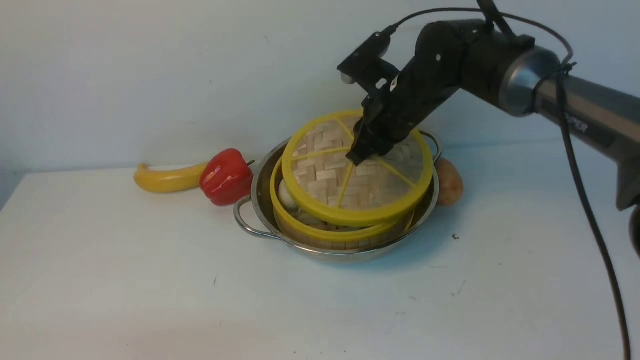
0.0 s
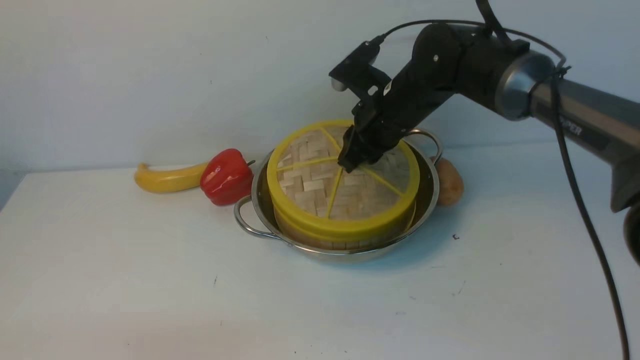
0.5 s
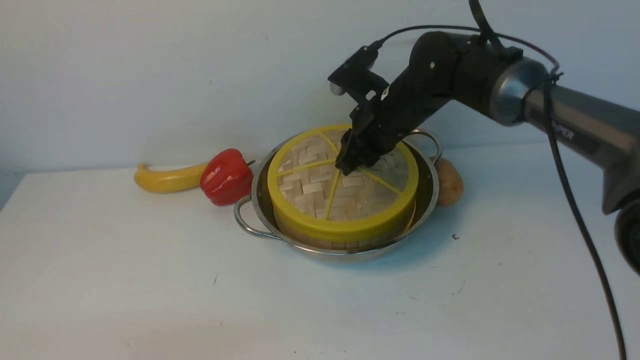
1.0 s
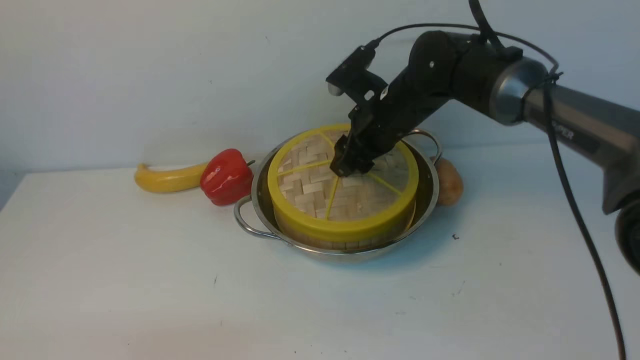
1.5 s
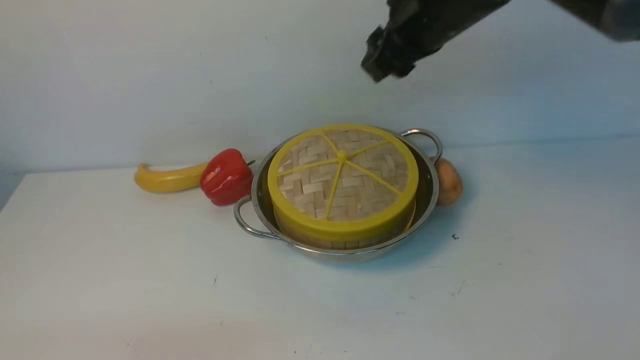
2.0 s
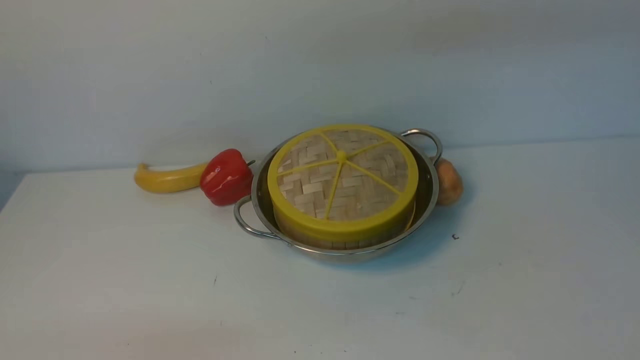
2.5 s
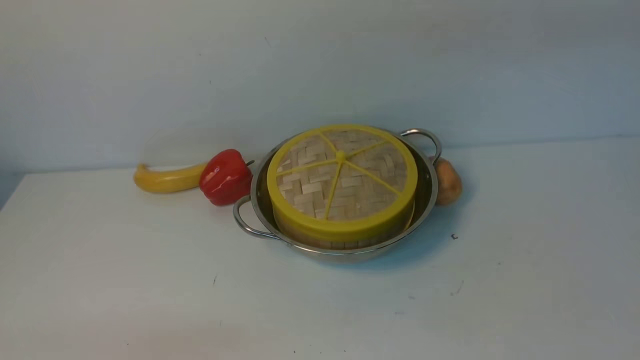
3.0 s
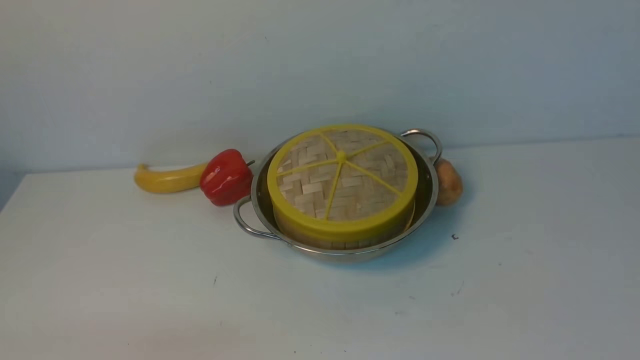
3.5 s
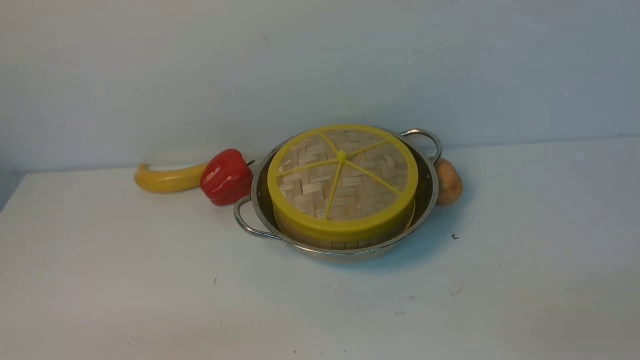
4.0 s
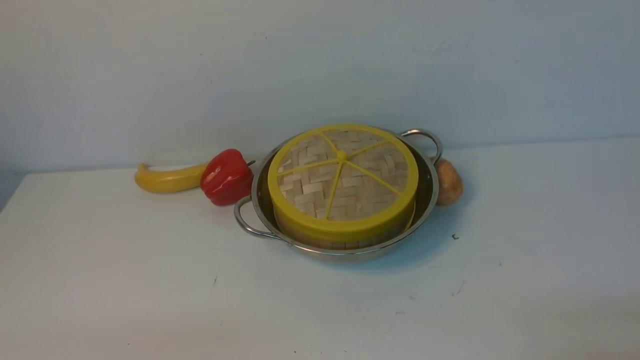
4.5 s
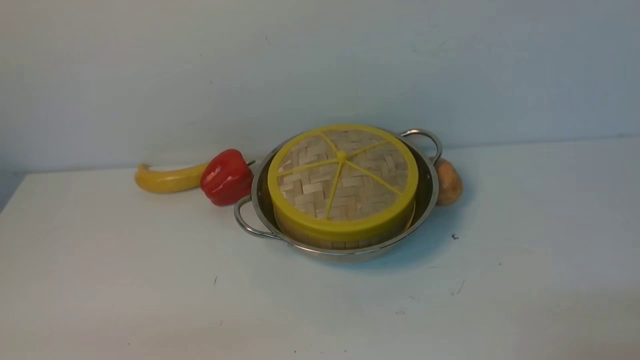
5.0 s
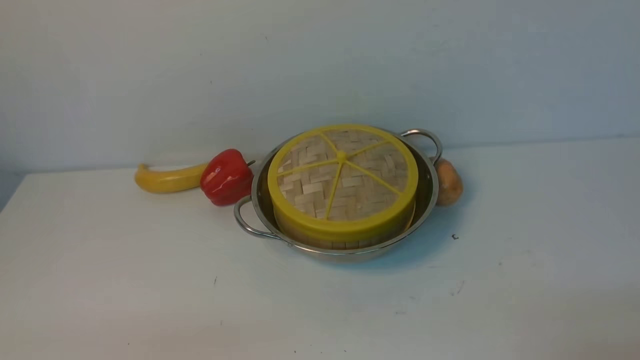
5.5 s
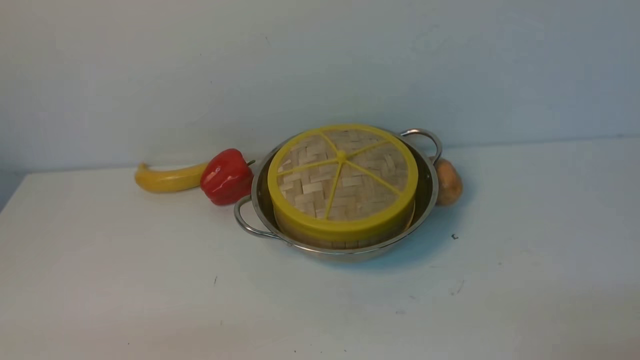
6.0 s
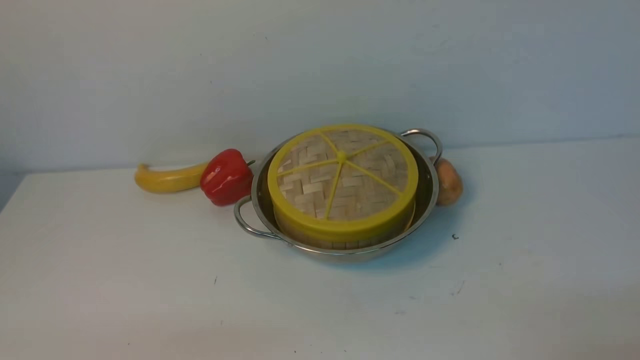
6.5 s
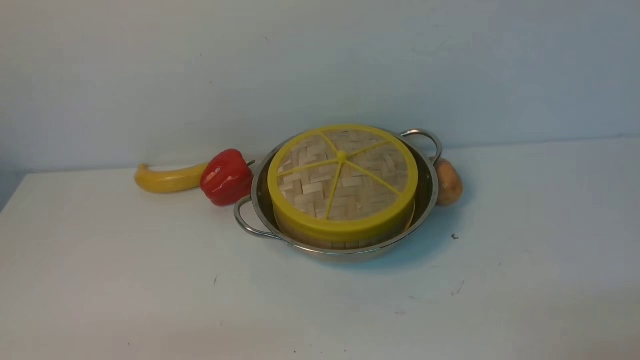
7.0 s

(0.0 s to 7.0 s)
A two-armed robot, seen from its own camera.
Task of the whole recording: place the steamer in the pot on the white table, and put the lid on the steamer.
Step, 0.0 s - 2.0 s: use the right arm to place the steamer lid on the steamer.
0.0 s - 2.0 s: The right gripper moves upward, roughly 15 cm, and opens.
2.0 s - 3.5 s: The right gripper heads backward and to the right, covering about 30 cm, and closes up.

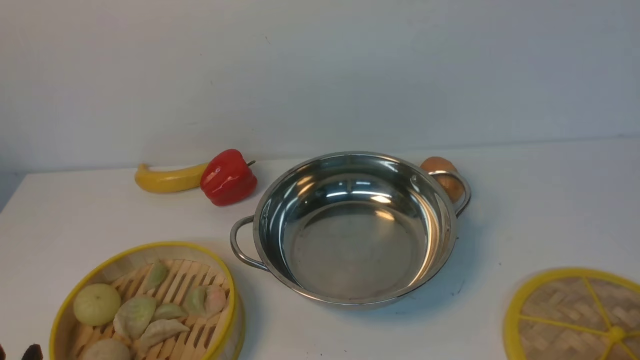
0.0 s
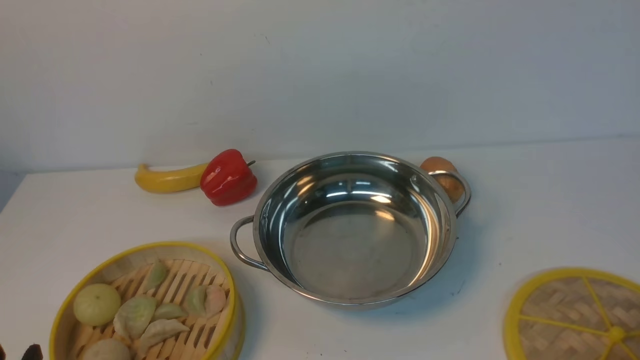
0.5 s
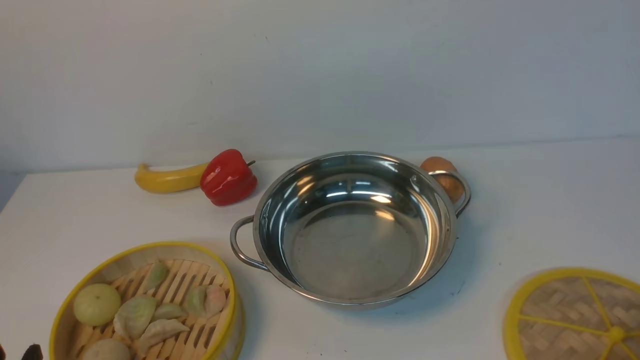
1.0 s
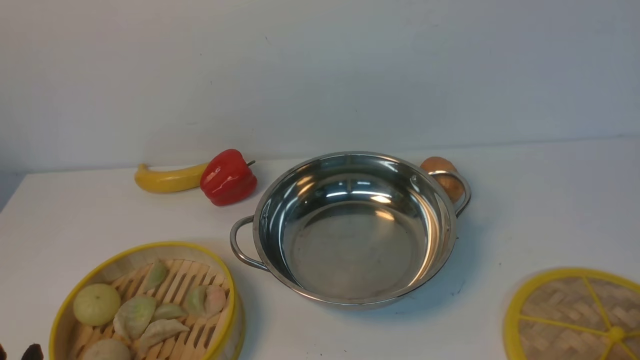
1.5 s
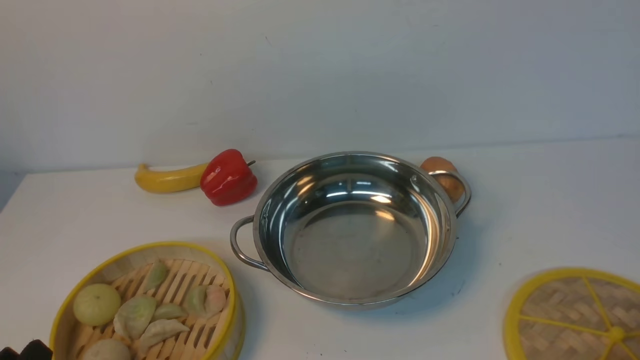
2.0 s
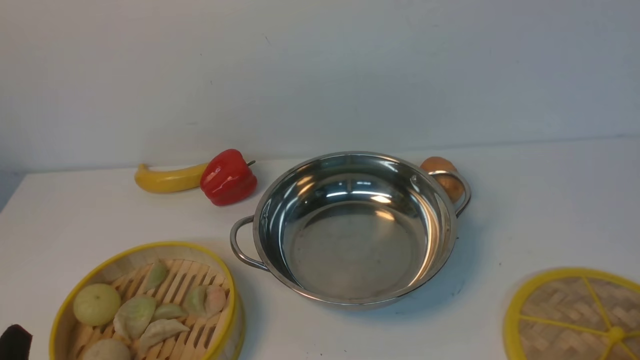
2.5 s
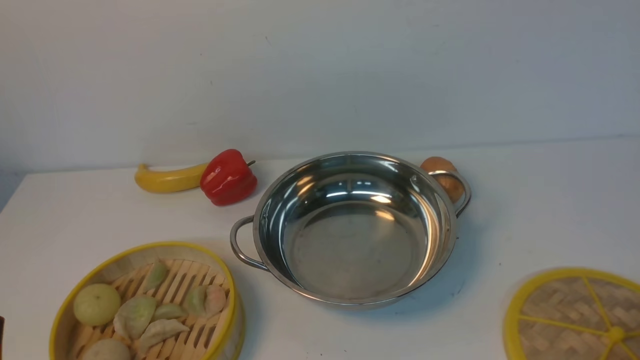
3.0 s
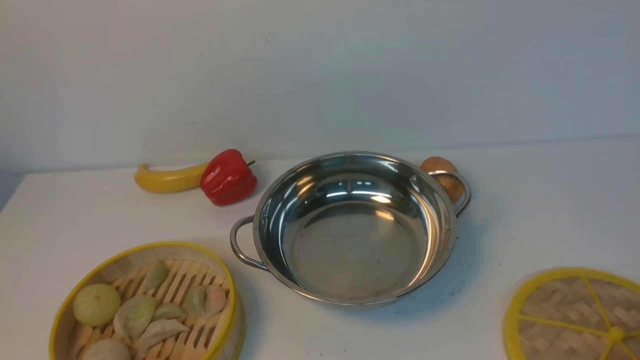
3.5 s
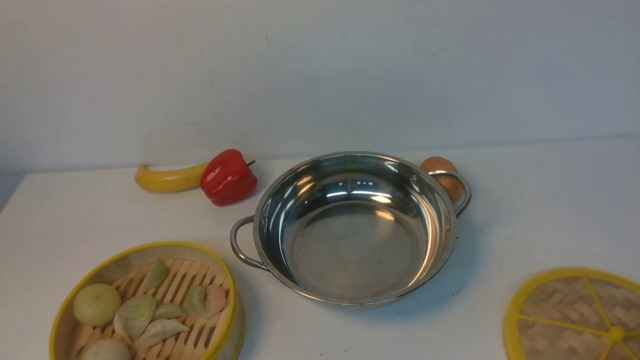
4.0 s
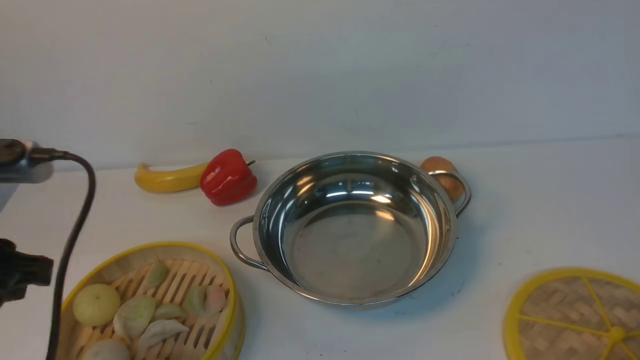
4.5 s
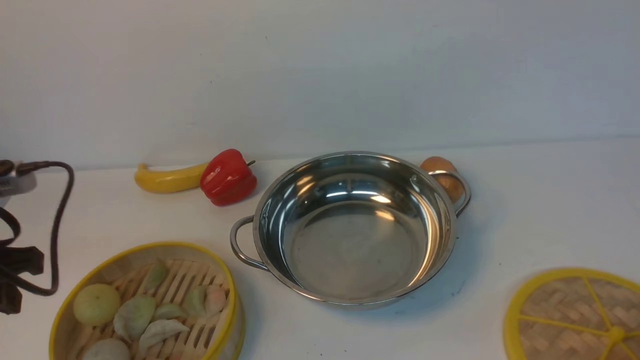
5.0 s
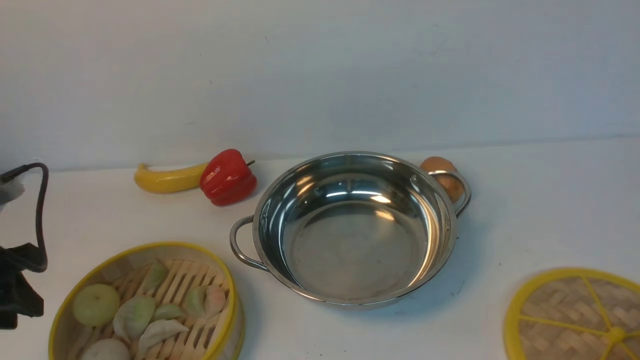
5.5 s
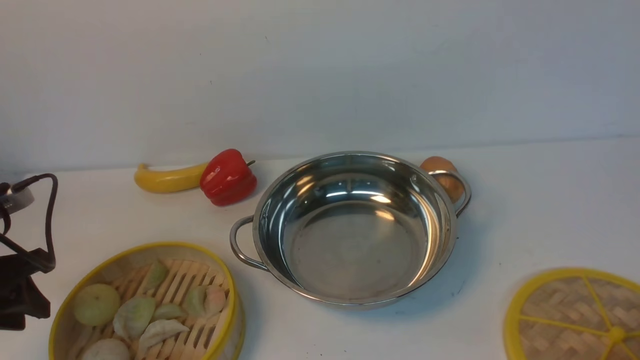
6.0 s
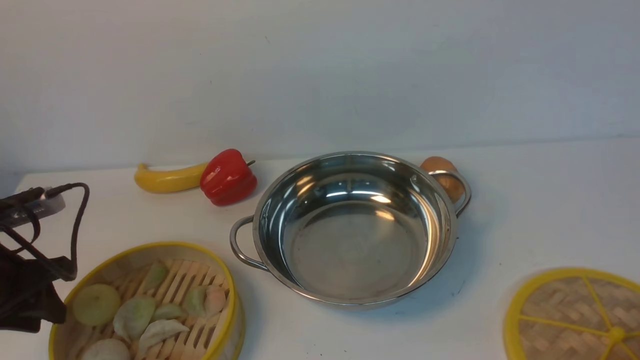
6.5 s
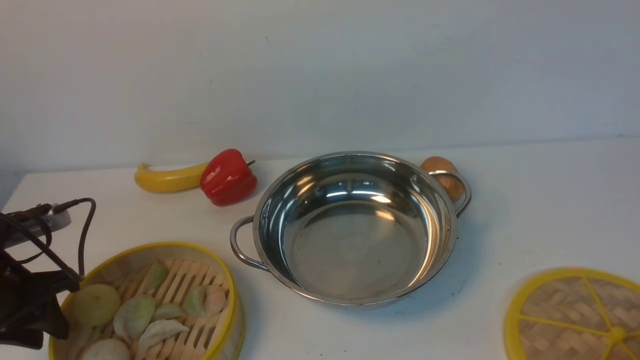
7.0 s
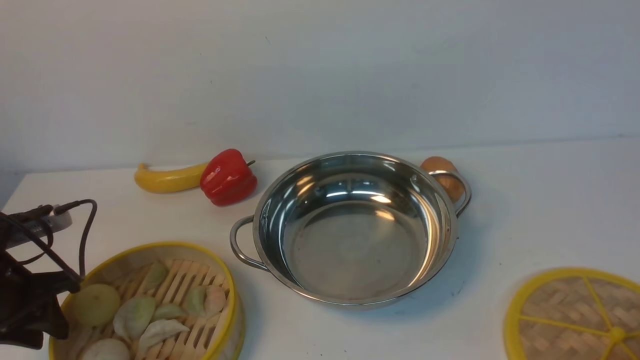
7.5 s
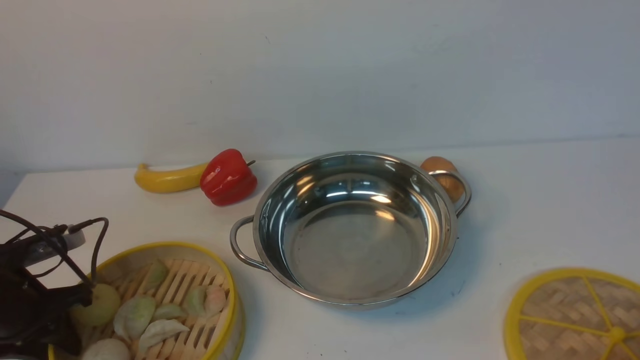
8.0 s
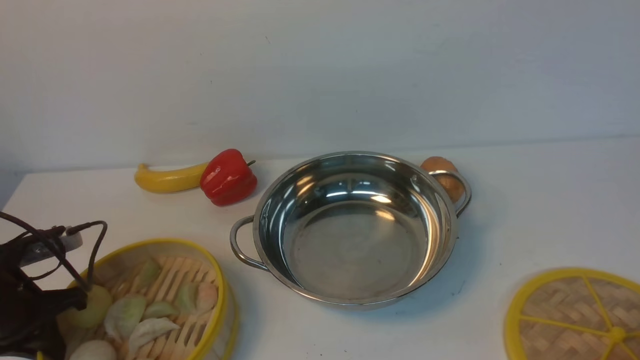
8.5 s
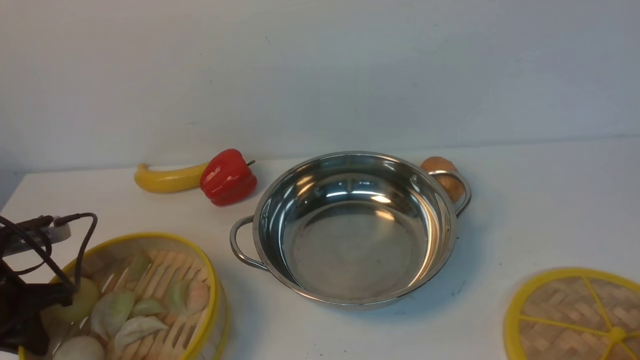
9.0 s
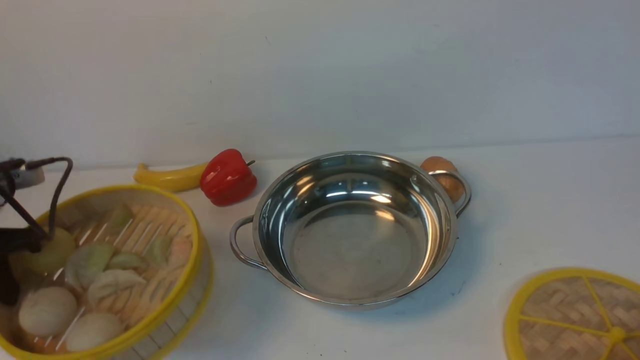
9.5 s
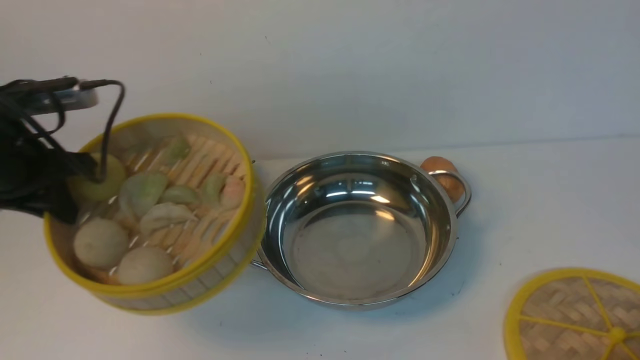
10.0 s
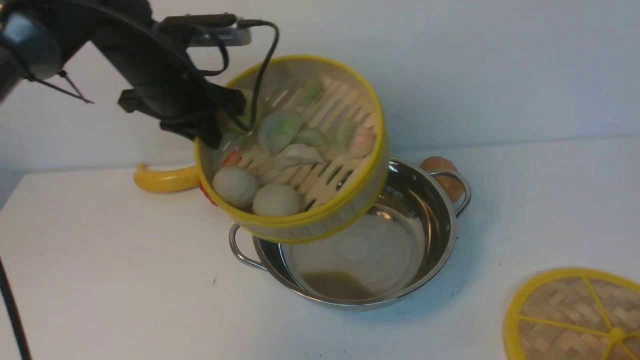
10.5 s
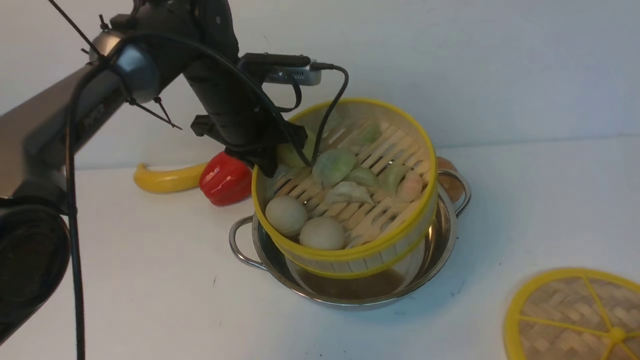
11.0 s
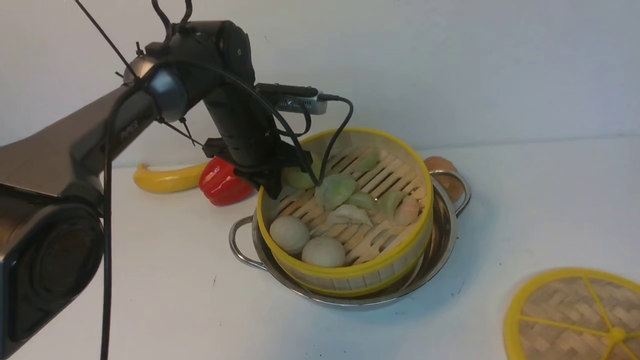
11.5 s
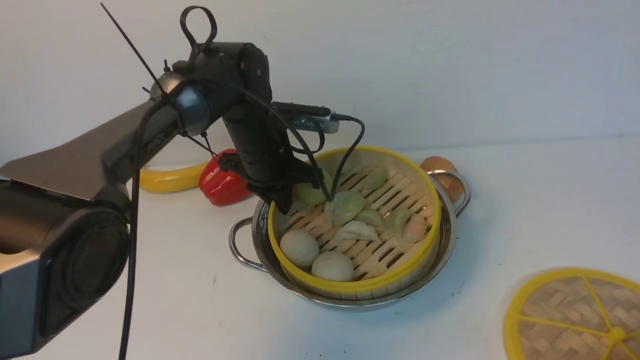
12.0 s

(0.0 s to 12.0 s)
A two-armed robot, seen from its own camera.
Task of the whole recording: place the steamer in the pot on the white table, and put the lid on the steamer.
Step, 0.0 s - 9.0 s: use the left arm to lift the steamer closest to it.
4.0 s - 6.0 s: The left gripper shifts about 25 cm forward, to the left and downward.
6.0 s - 8.0 s: The left gripper is displaced downward by approximately 5 cm.
8.0 s - 10.0 s: The left gripper travels upward and forward by approximately 15 cm, and closes its fingers.
10.0 s - 12.0 s: The left gripper moves to the right, forward and downward, roughly 25 cm.

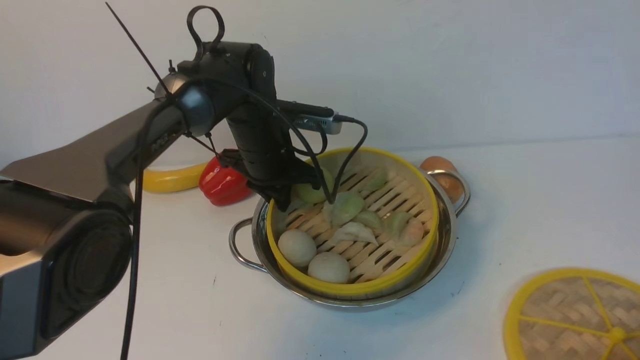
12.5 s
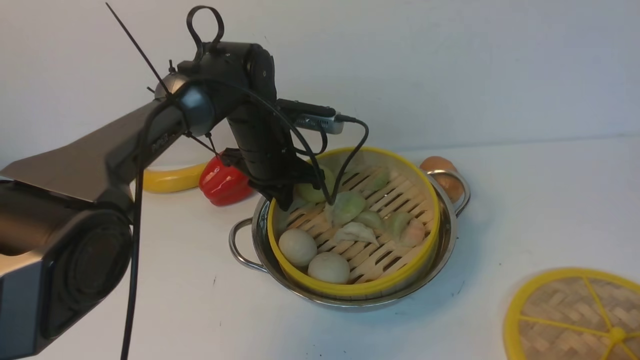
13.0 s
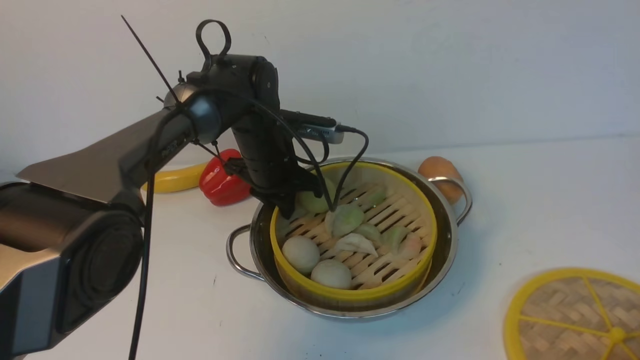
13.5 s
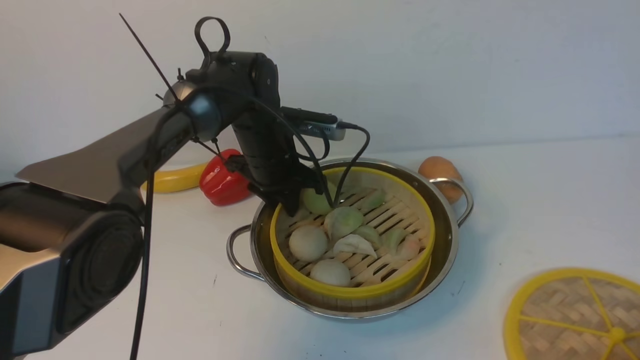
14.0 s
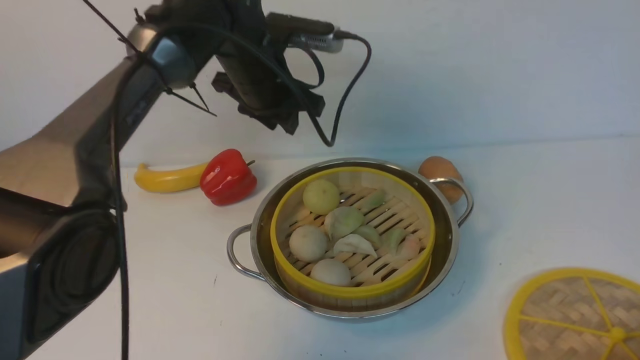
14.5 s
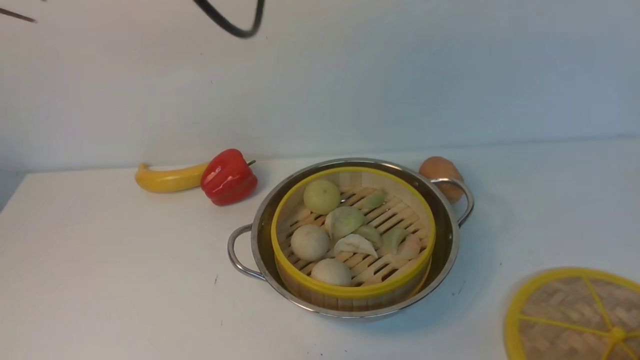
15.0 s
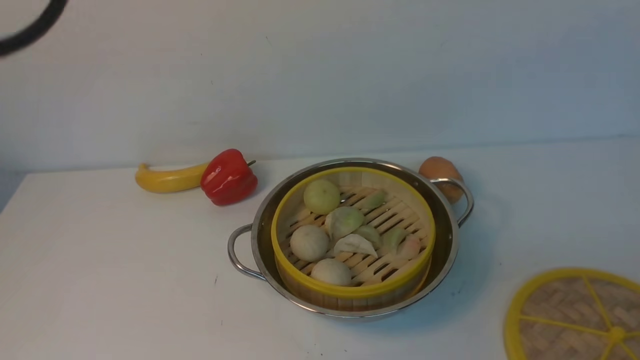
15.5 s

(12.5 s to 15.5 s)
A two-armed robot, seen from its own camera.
Task of the whole recording: place the steamer in the pot on the white table, and put the lid on the steamer.
Step, 12.5 s - 14.5 s: use the left arm to put the steamer into the iron steamer pot in the middle.
12.5 s - 14.0 s: The left gripper opens its fingers.
14.0 s - 15.5 s: The right gripper heads upward, covering some 10 cm. The left gripper heads upward and backward, covering approximately 40 cm, and closes its fingers.
